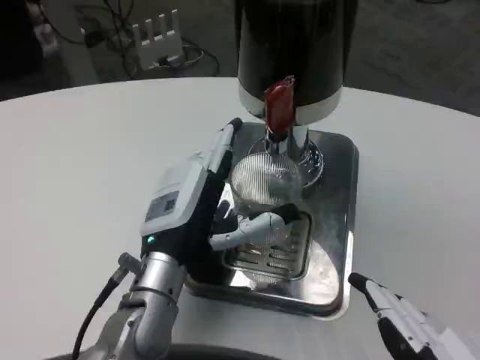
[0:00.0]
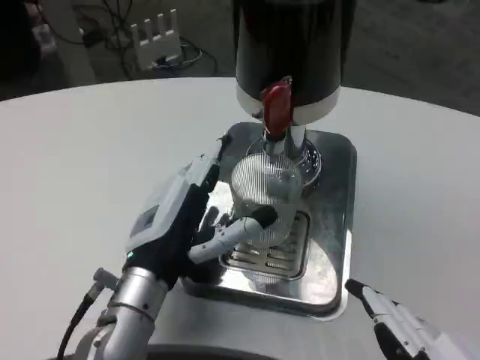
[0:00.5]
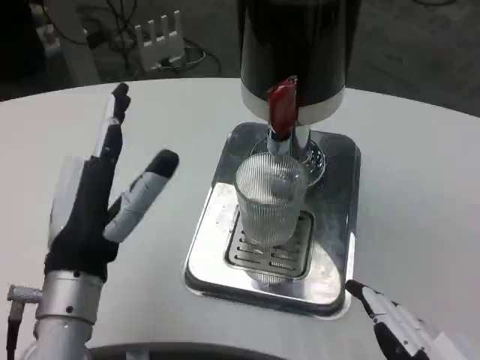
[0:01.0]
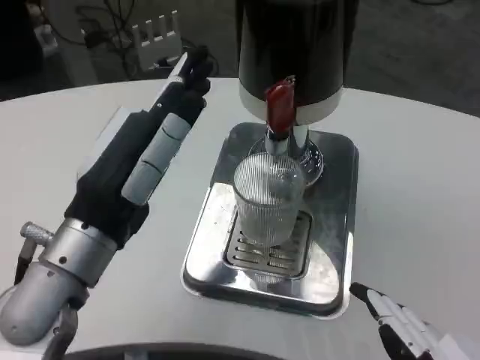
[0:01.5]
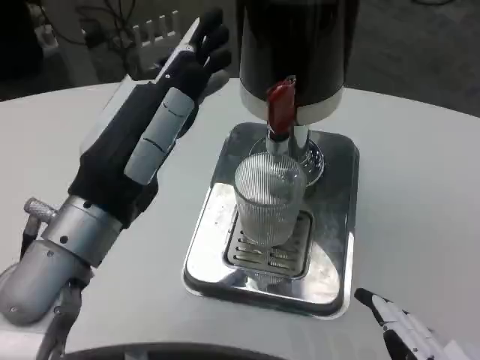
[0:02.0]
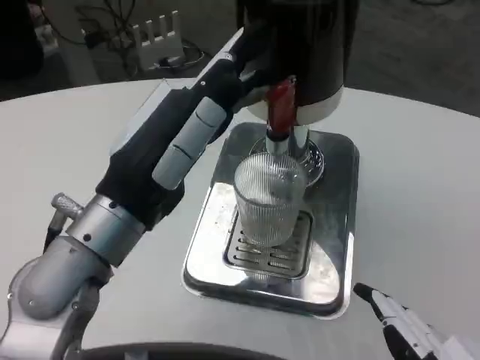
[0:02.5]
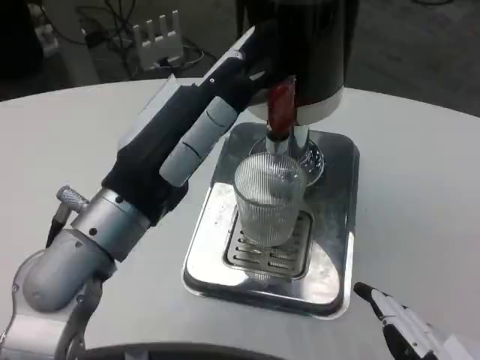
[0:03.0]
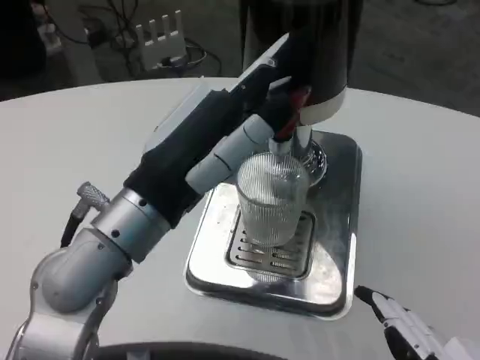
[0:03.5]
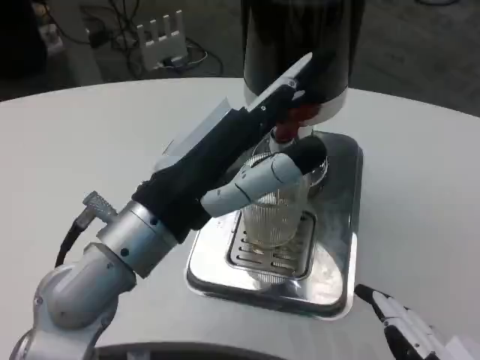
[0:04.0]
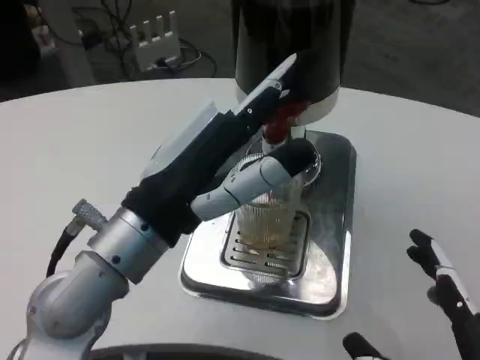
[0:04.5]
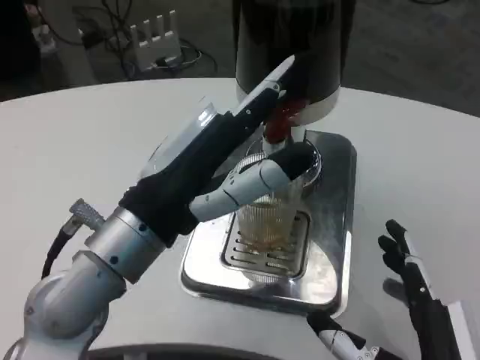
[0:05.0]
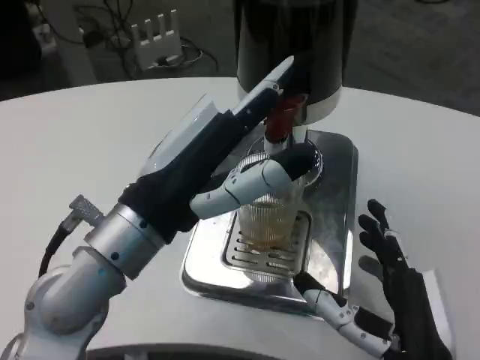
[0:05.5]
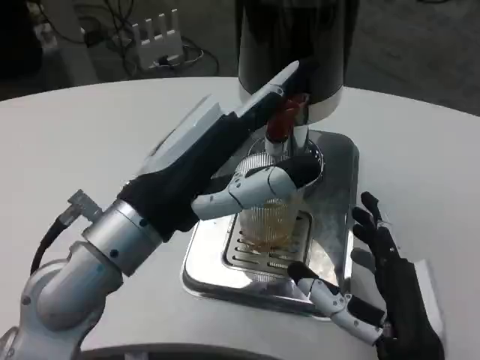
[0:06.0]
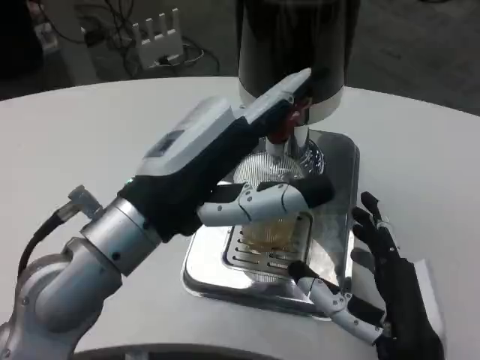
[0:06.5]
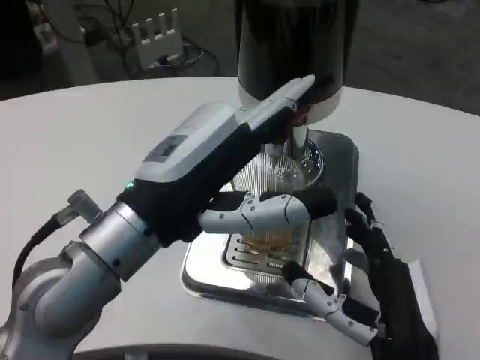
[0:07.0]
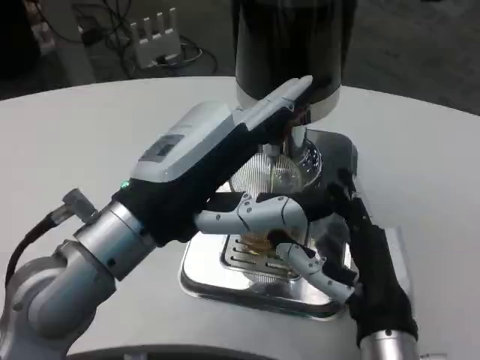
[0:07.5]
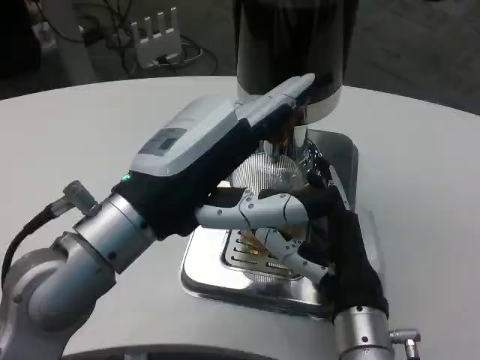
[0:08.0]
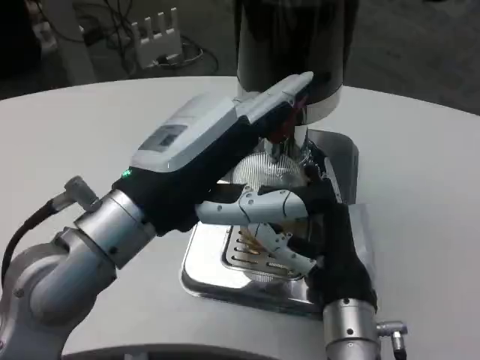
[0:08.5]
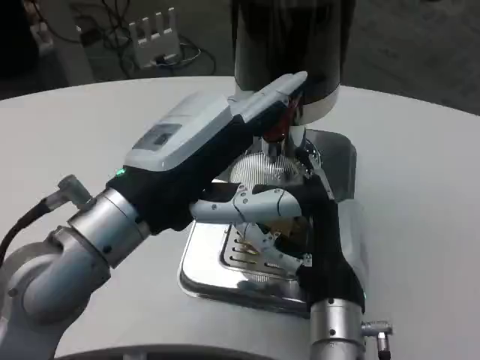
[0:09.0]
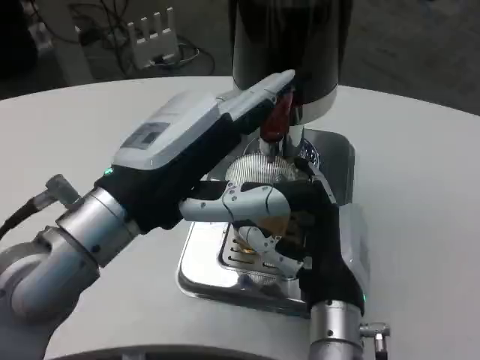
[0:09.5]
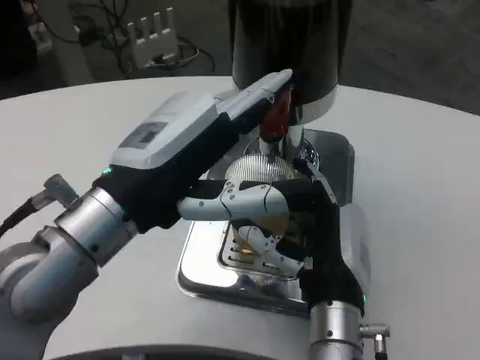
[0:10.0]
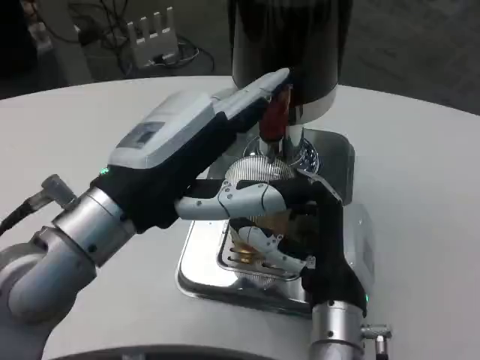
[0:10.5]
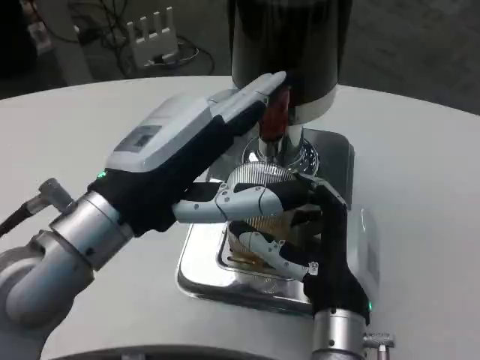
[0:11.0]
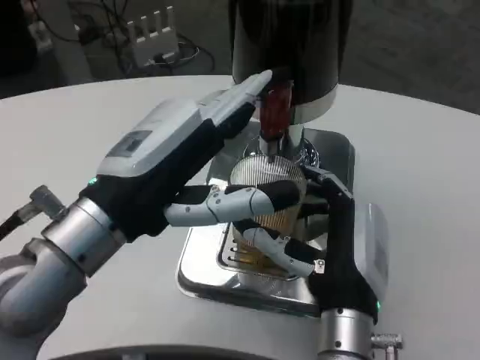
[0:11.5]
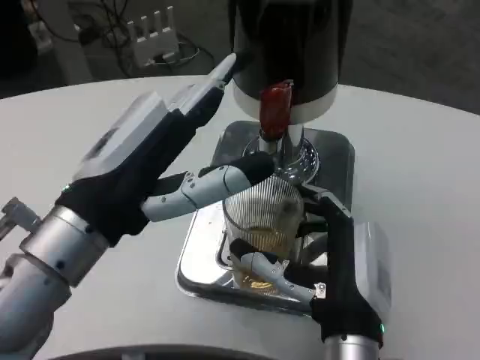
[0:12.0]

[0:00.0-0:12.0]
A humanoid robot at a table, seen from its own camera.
Task of the whole recording: Grasp the cup under the faucet to collect the drink, then remove the cup.
0:00.0 to 0:02.0: The left hand goes some 15 cm upward, to the left and backward.
0:04.0 to 0:06.0: The right hand heads forward, downward and to the left, covering approximately 15 cm.
0:06.0 to 0:08.0: The right hand goes some 5 cm forward.

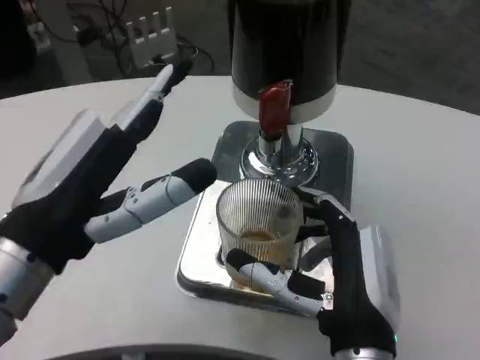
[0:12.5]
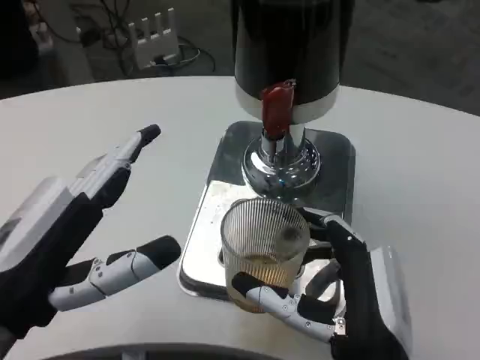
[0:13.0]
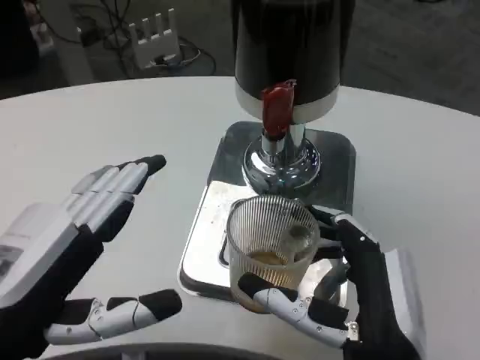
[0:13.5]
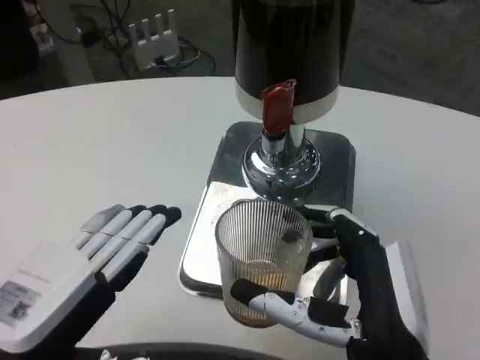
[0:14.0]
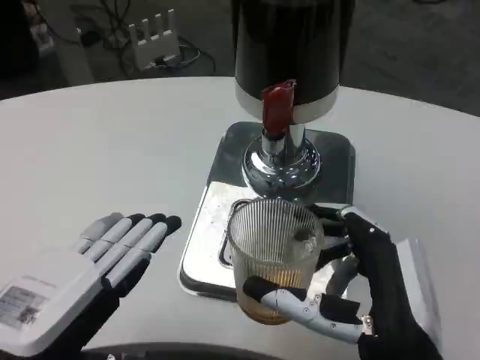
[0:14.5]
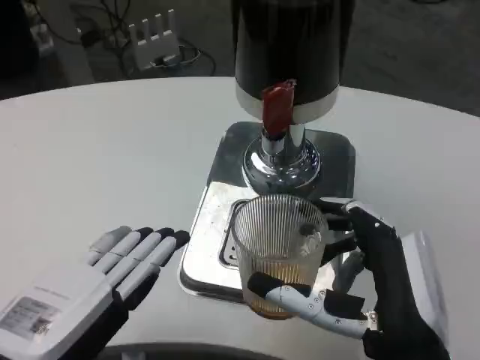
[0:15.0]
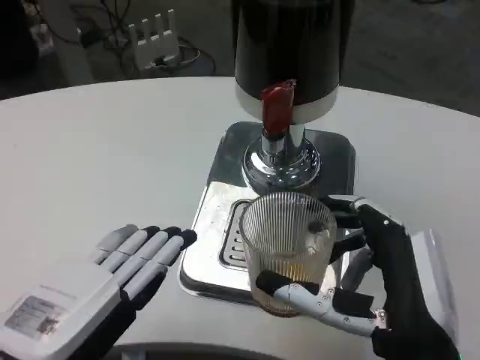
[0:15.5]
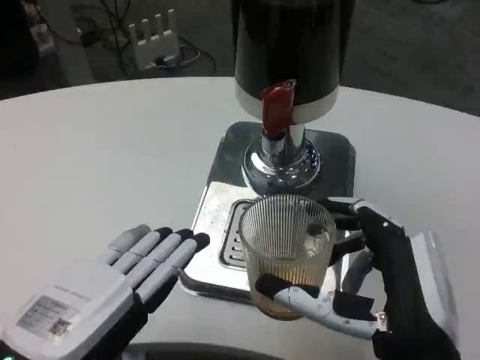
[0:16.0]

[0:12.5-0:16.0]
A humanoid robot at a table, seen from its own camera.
Task of the whole recording: Grasp the cup under the faucet to collect the drink, then remove the cup.
0:12.5 to 0:14.5: The right hand moves roughly 5 cm. Meanwhile the left hand goes some 5 cm downward.
0:14.5 to 0:16.0: There are only small adjustments of the hands.

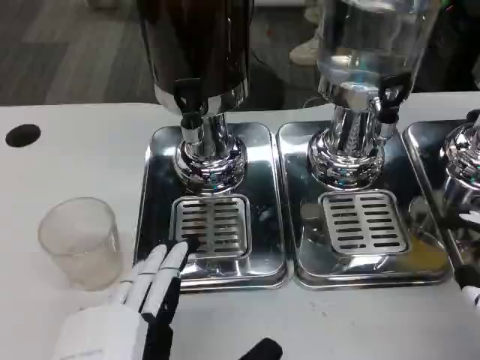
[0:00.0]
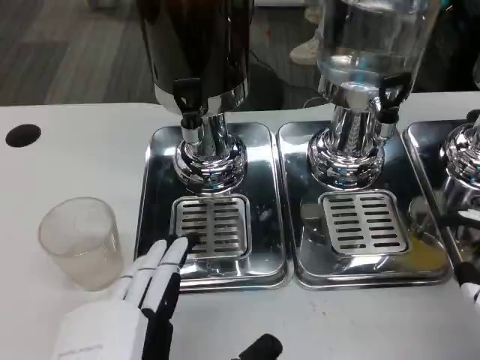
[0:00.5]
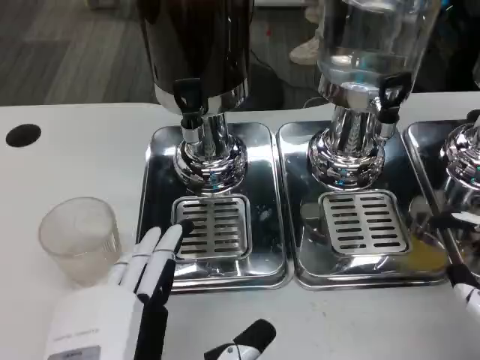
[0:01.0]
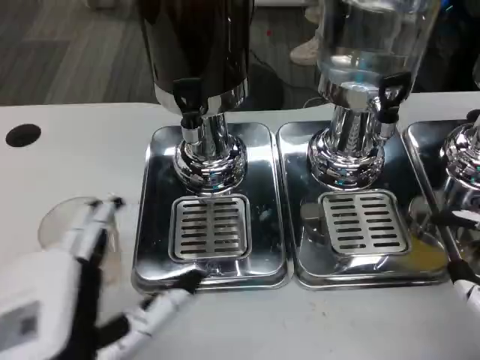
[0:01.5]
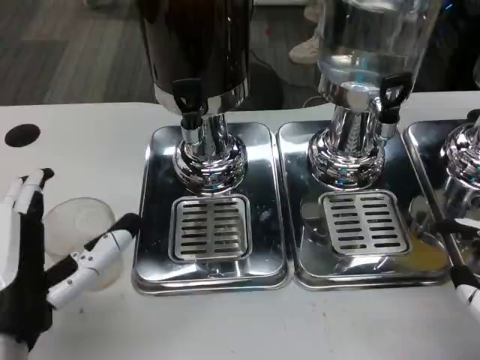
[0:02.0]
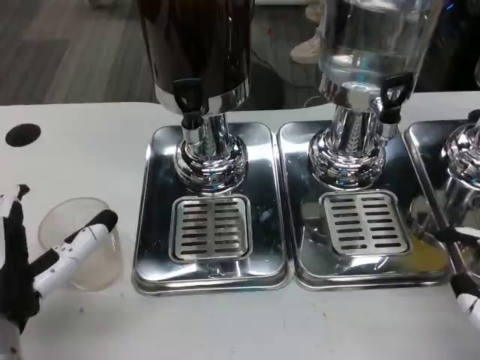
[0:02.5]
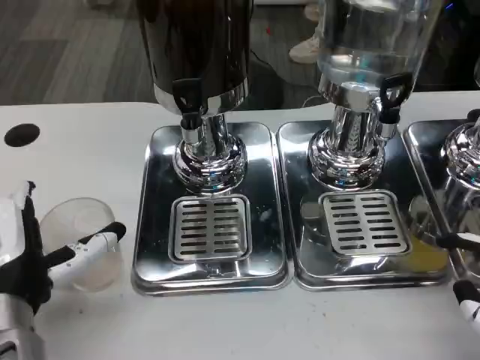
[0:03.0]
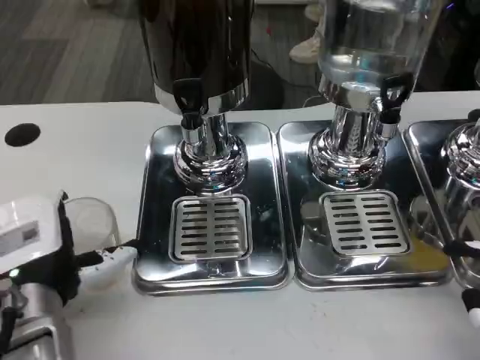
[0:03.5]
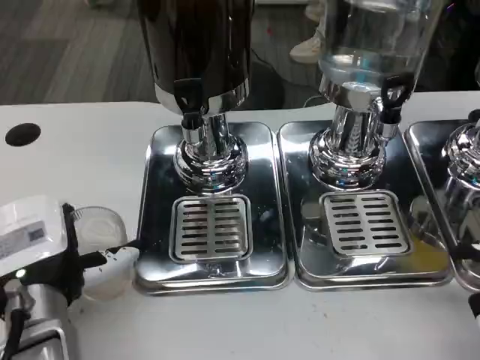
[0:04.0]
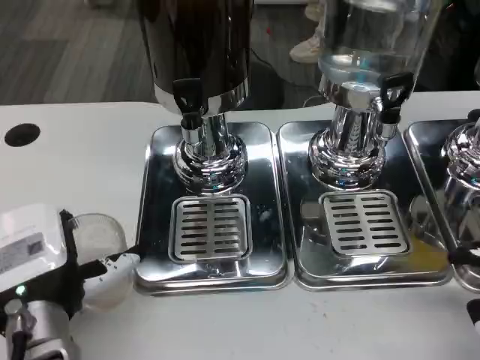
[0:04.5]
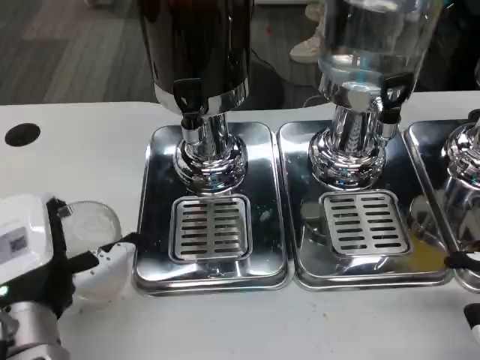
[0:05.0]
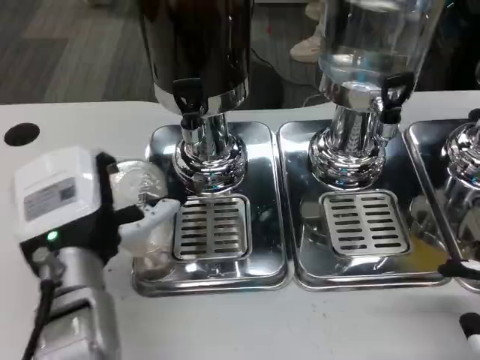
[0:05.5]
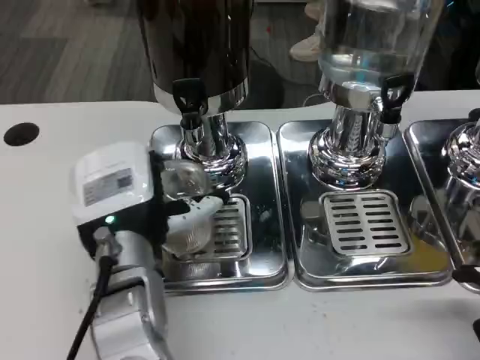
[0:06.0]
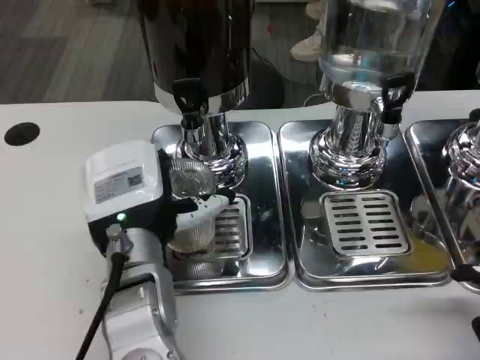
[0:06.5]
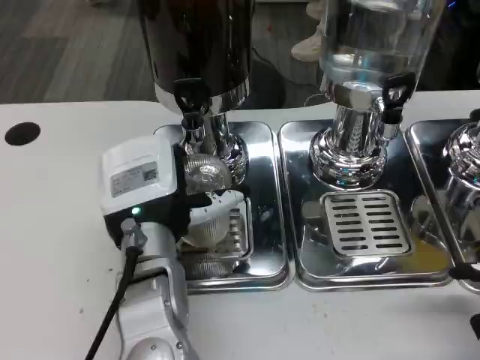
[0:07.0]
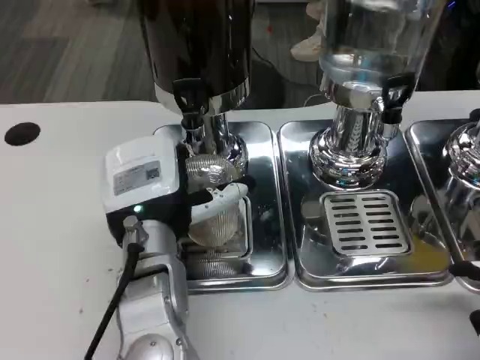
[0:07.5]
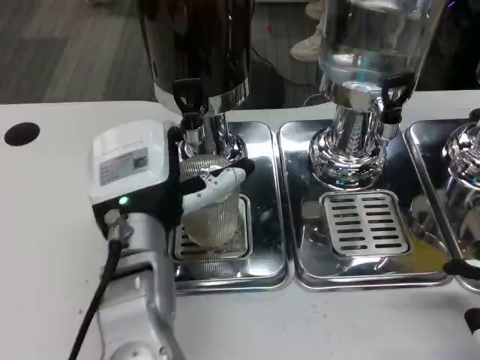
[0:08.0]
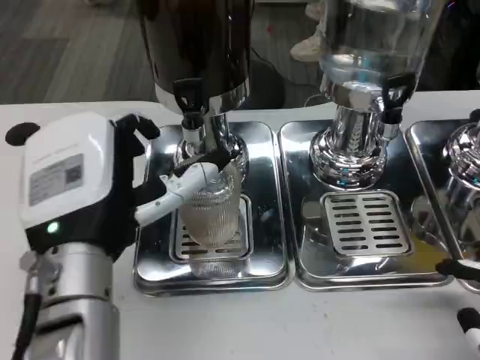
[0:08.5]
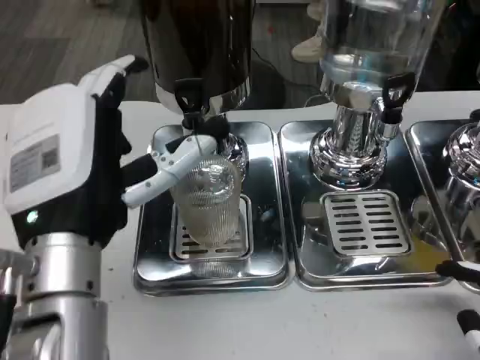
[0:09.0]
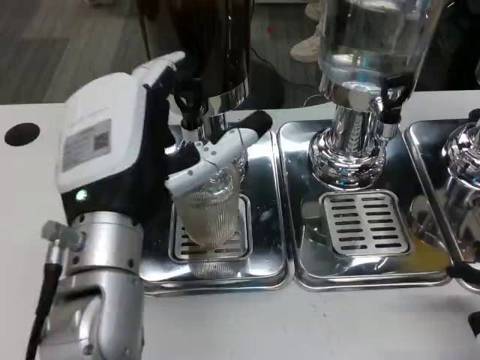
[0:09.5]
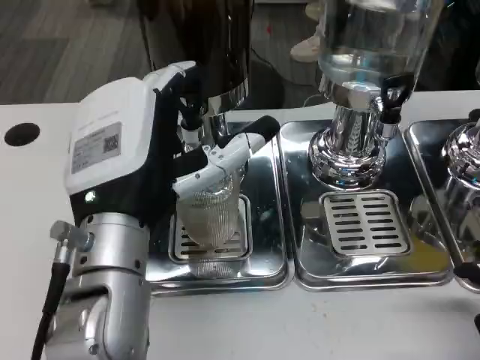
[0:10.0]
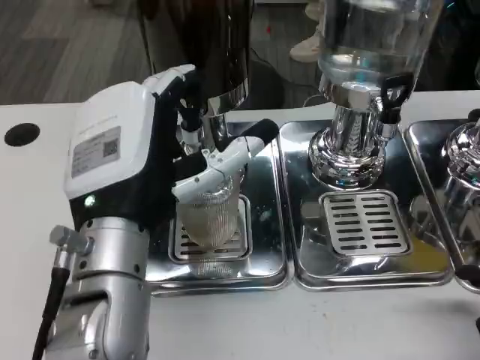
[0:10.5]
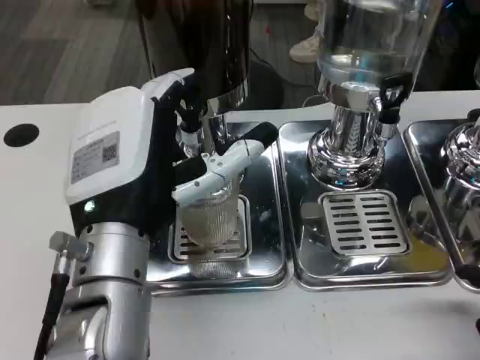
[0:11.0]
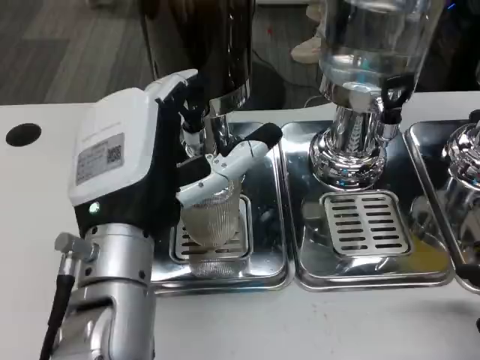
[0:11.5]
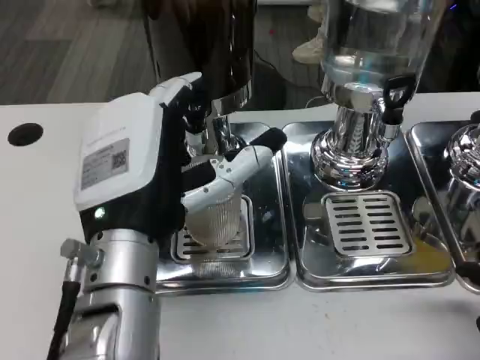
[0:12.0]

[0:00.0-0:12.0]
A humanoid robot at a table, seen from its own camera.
Task of the whole recording: Grasp the cup under the faucet to collect the drink, then remove the cup.
0:00.0 to 0:02.0: The left hand moves forward and to the left, some 10 cm.
0:02.0 to 0:04.0: The left hand moves forward, approximately 5 cm.
0:04.0 to 0:06.0: The left hand goes roughly 5 cm to the right.
0:06.0 to 0:08.0: The hands make only small movements.
0:08.0 to 0:10.0: The left hand ends up about 5 cm from where it was.
